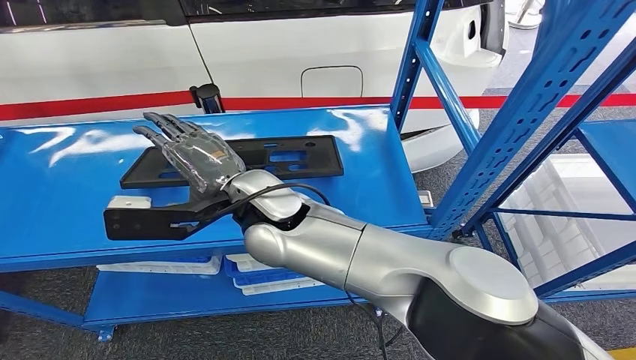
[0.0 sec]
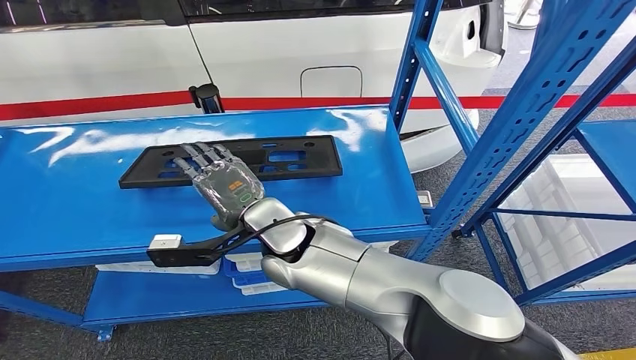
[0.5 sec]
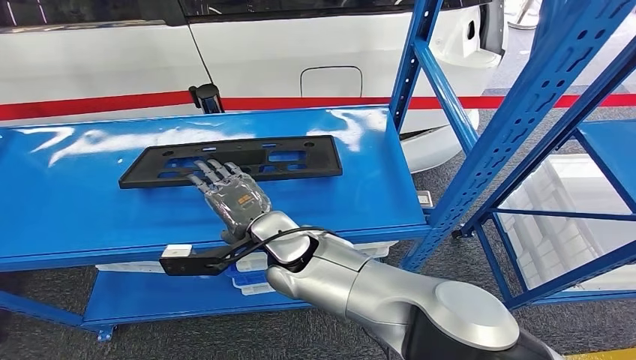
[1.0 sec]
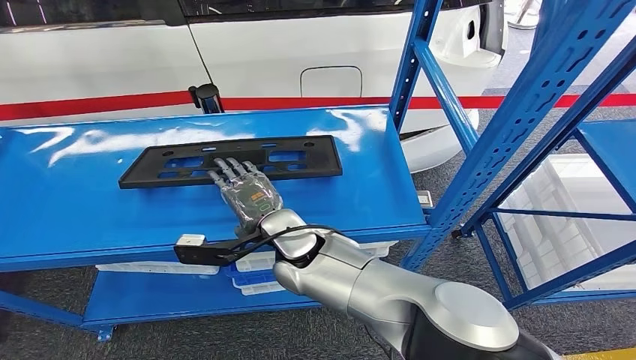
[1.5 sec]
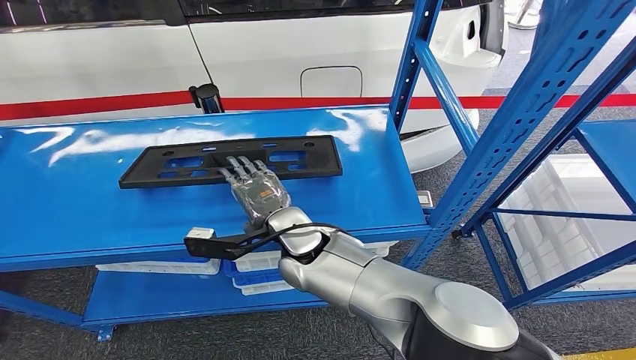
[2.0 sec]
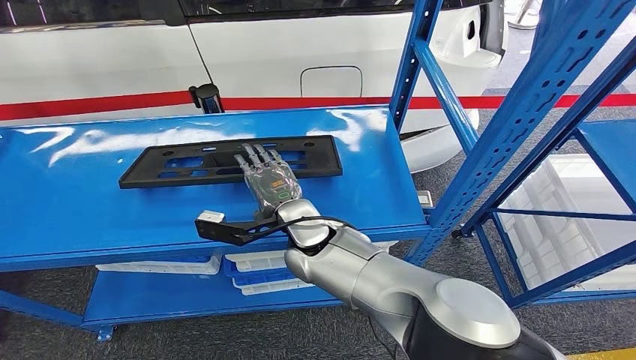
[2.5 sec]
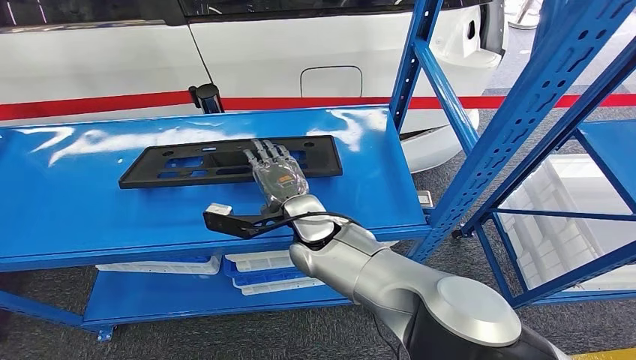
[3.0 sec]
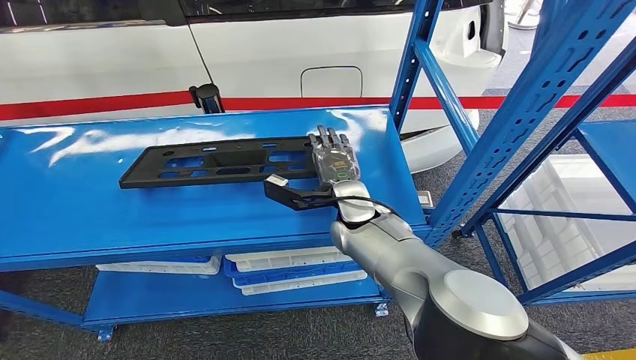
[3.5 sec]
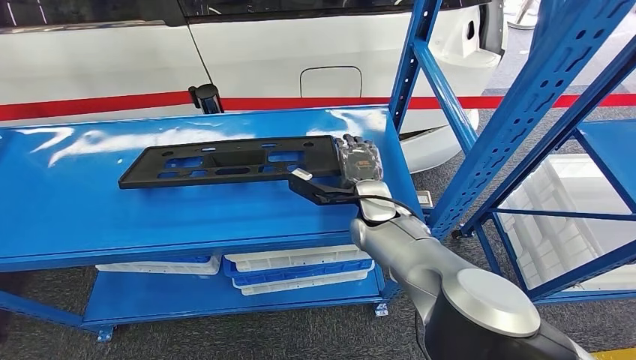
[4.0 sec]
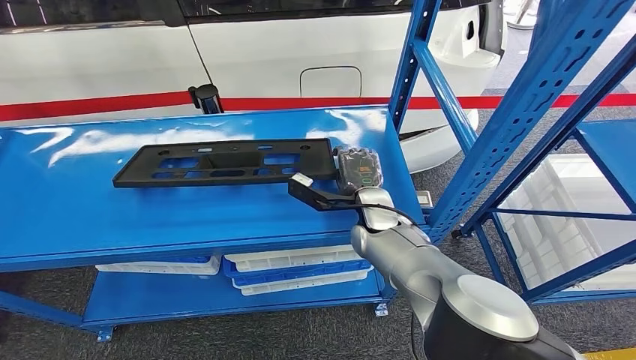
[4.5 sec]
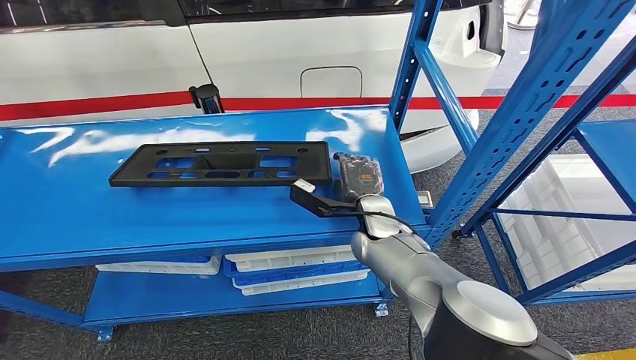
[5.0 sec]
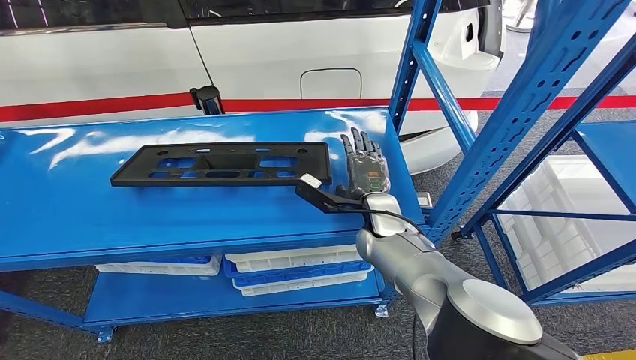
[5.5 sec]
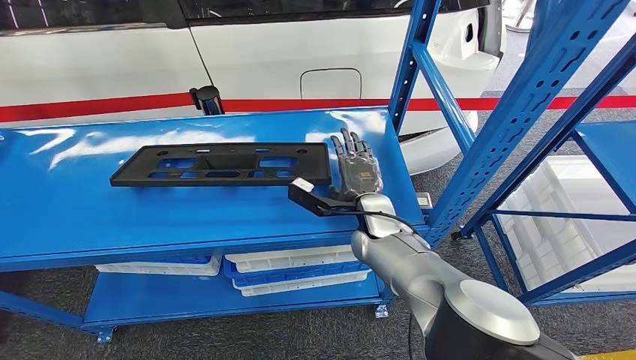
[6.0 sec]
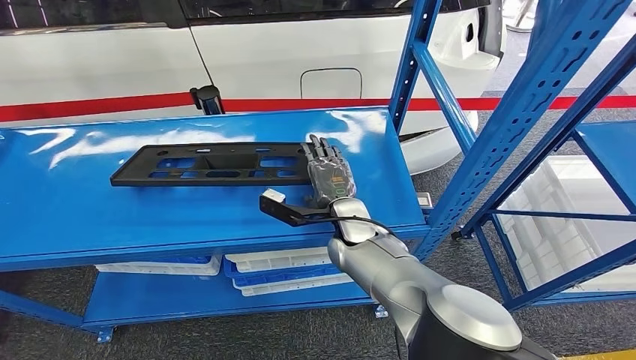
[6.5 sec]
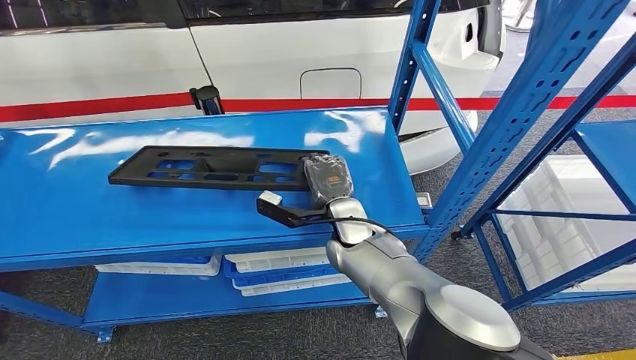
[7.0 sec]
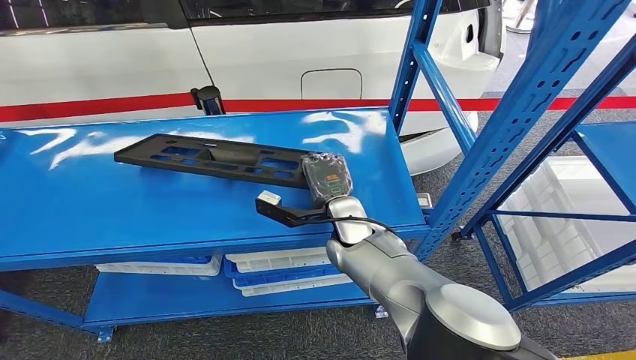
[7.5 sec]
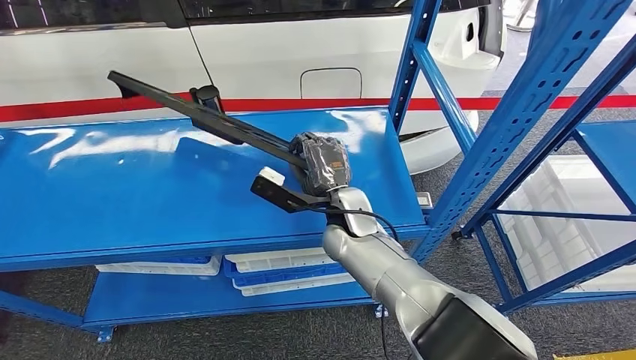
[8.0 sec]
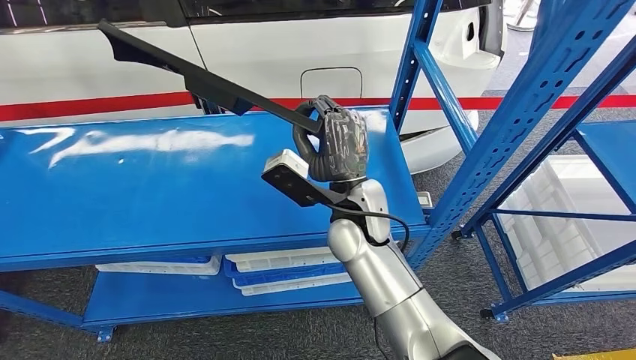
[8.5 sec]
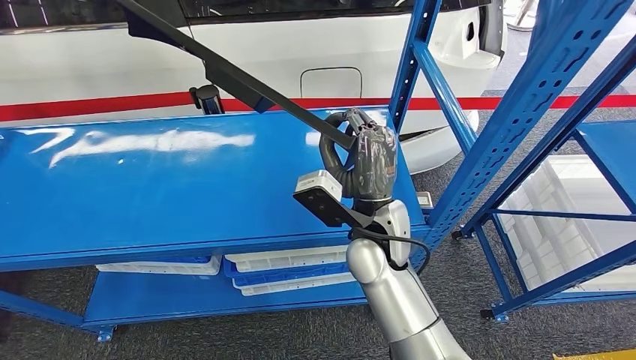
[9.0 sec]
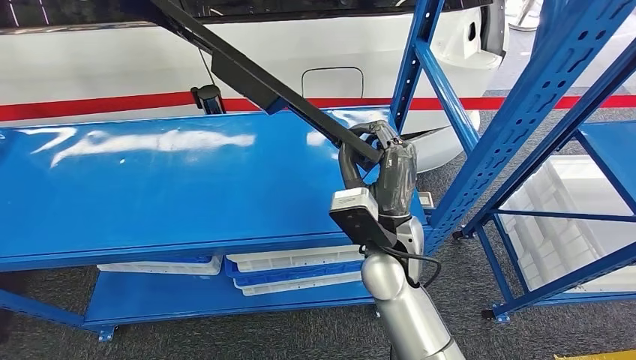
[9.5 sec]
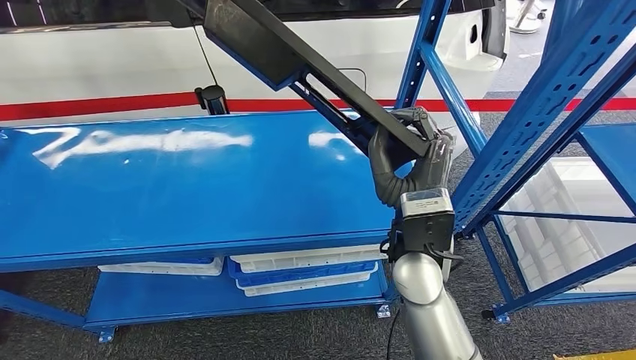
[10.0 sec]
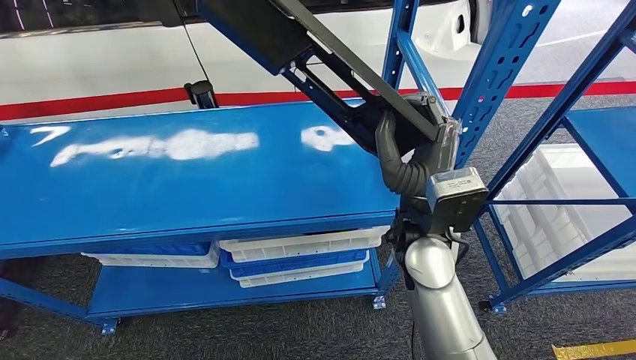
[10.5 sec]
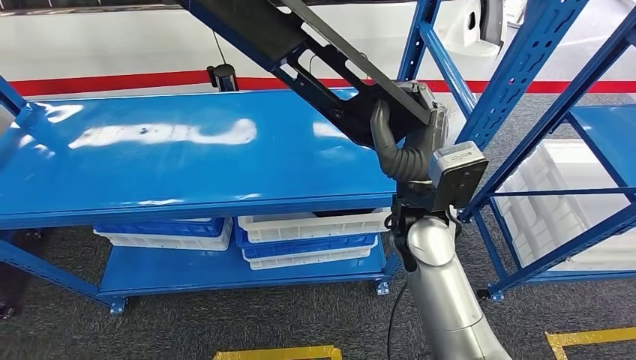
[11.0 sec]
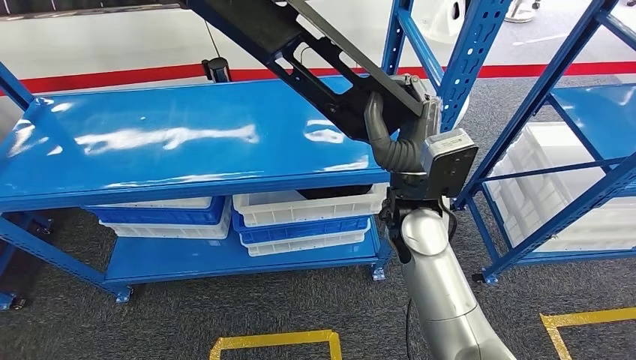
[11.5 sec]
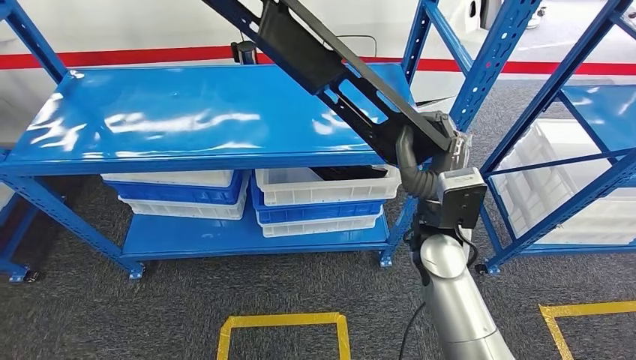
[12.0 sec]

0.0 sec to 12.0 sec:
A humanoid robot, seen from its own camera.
Step, 0.0 sec to 8.5 sec: Pick up the large material from the shelf.
0.0 sec to 2.0 sec: The right hand goes approximately 10 cm downward.
2.0 sec to 4.0 sec: The right hand heads to the right and forward, covering about 15 cm.
4.0 sec to 6.0 sec: The hands move only a little.
6.0 sec to 8.0 sec: The right hand moves some 5 cm.

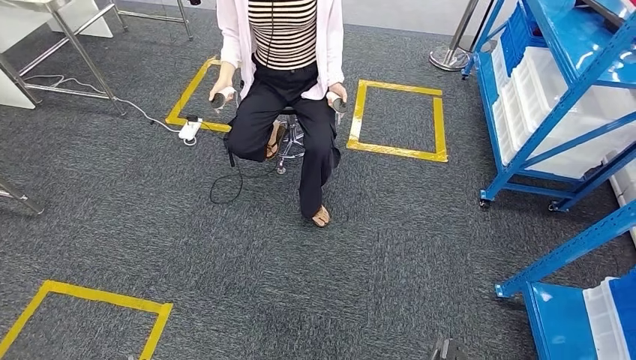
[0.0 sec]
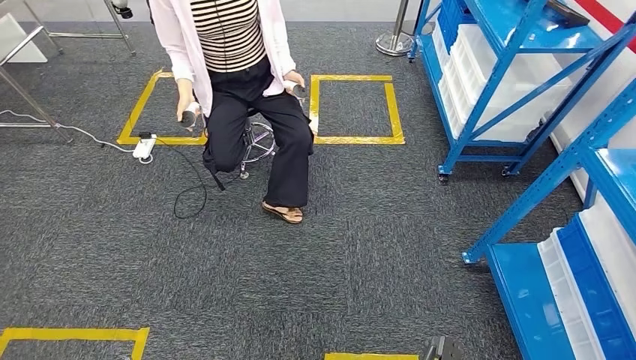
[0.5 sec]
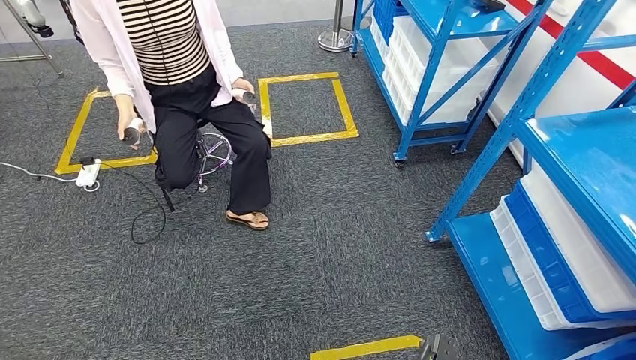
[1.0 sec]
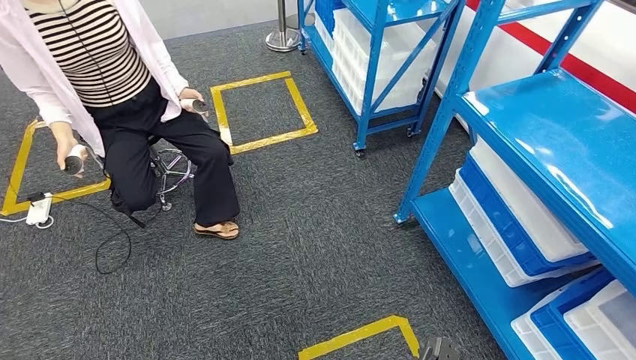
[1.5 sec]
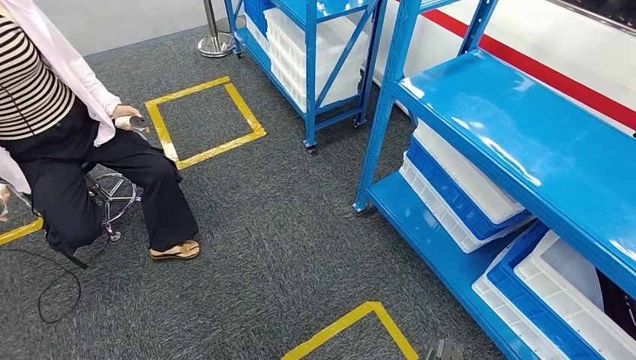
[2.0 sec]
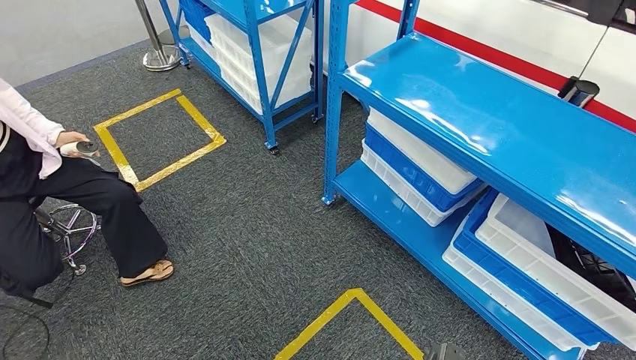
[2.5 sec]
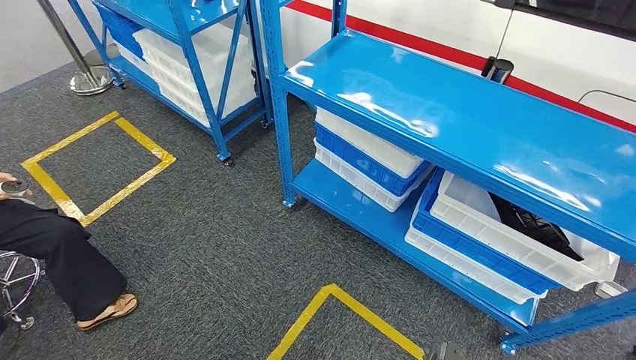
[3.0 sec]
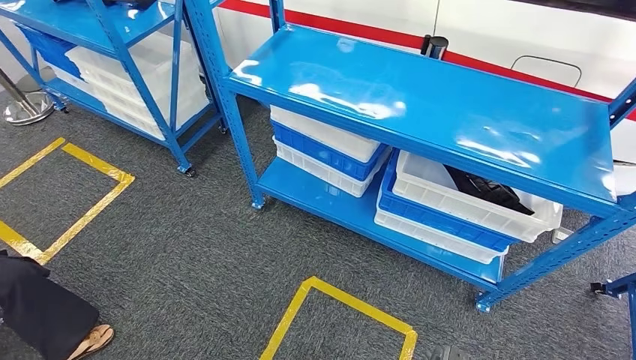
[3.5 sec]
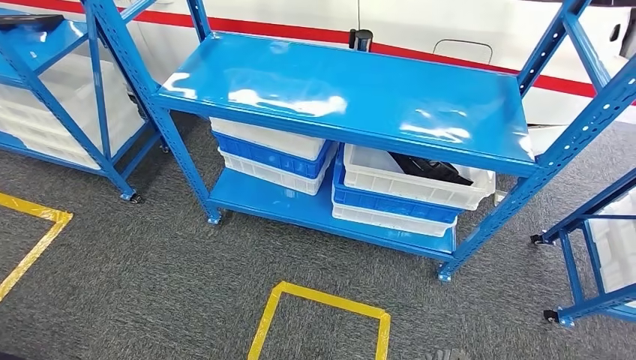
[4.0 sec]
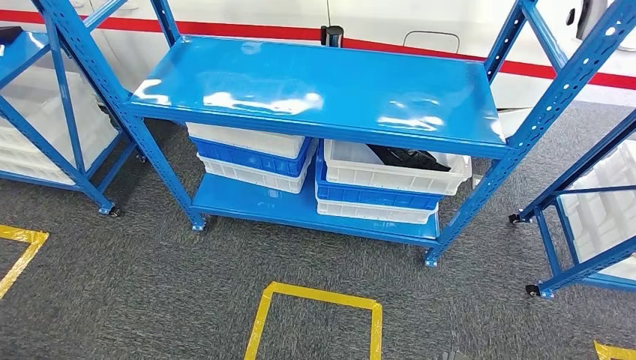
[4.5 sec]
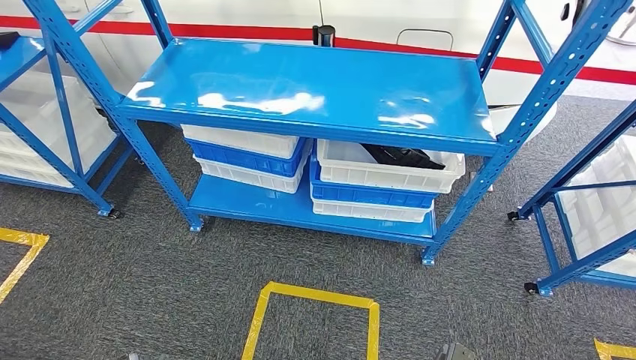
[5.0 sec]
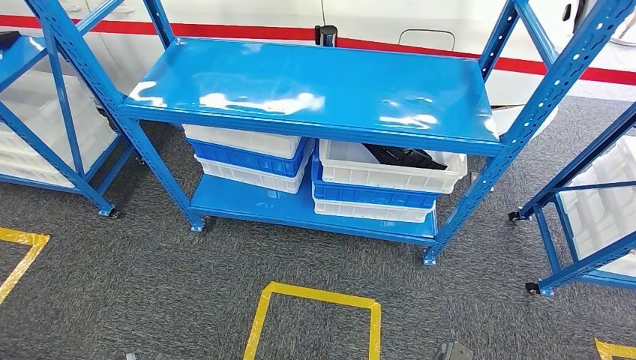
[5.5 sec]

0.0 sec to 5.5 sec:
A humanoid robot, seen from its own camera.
Step, 0.0 sec to 5.5 sec: Move to the initial position of the shelf.
